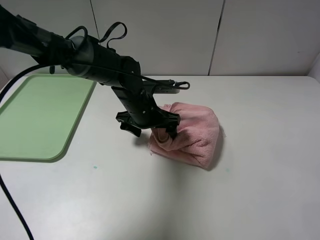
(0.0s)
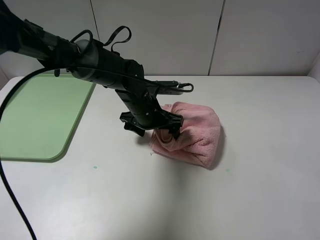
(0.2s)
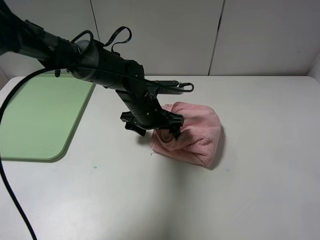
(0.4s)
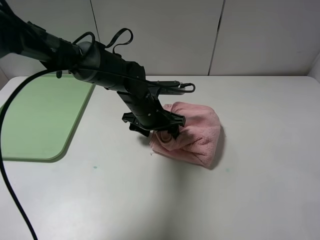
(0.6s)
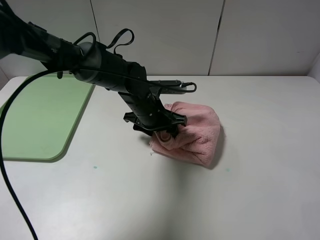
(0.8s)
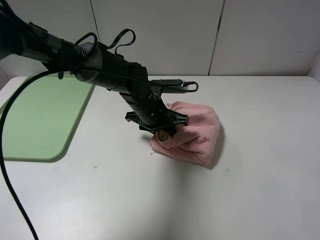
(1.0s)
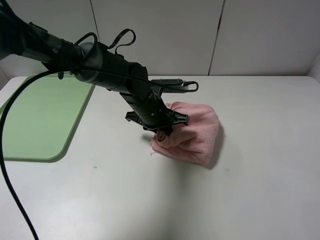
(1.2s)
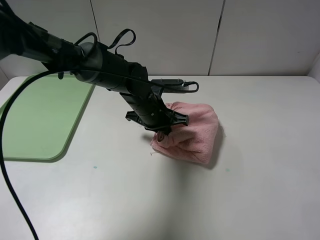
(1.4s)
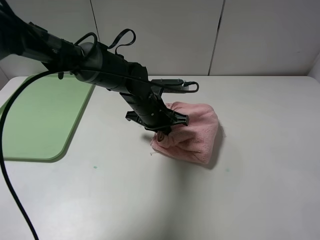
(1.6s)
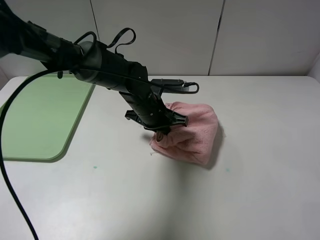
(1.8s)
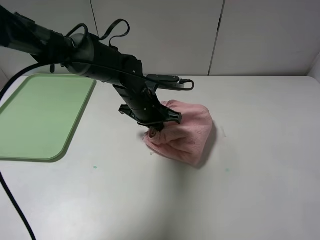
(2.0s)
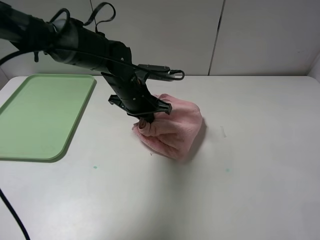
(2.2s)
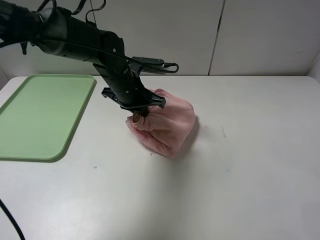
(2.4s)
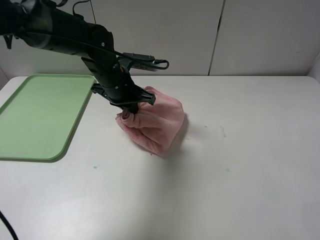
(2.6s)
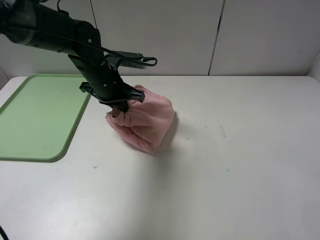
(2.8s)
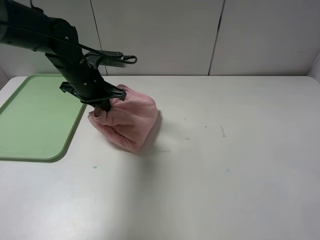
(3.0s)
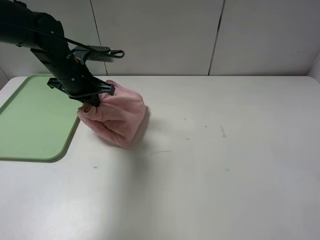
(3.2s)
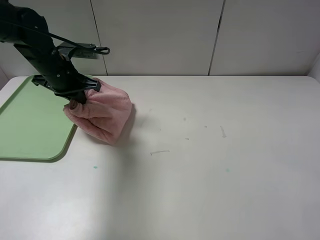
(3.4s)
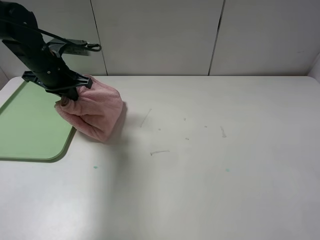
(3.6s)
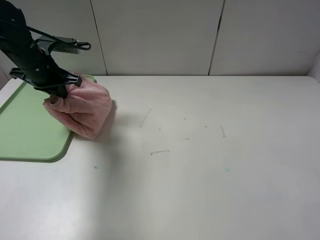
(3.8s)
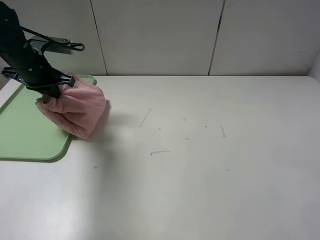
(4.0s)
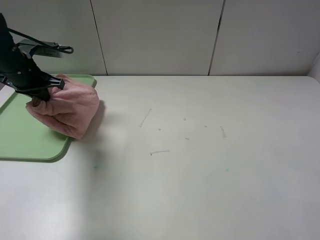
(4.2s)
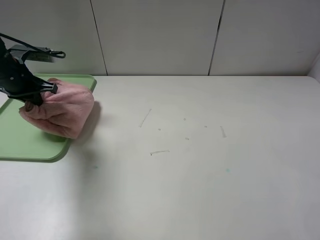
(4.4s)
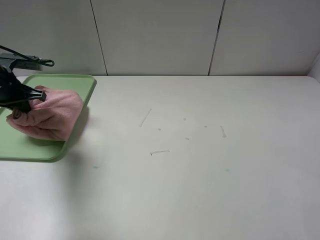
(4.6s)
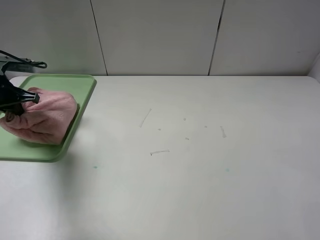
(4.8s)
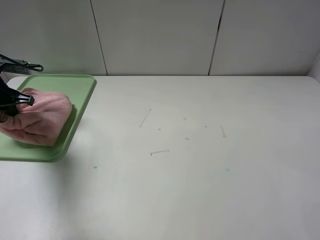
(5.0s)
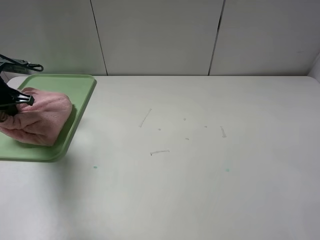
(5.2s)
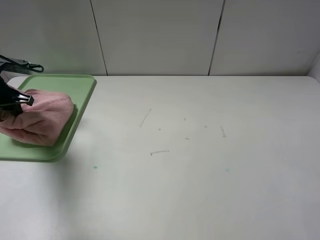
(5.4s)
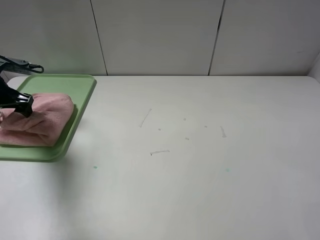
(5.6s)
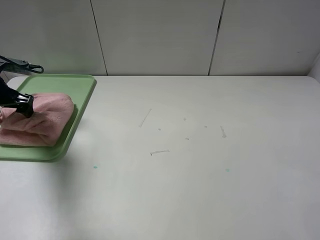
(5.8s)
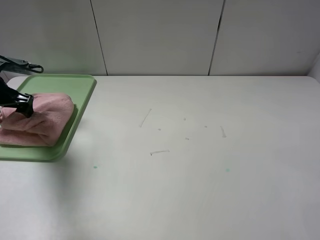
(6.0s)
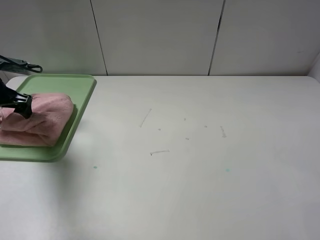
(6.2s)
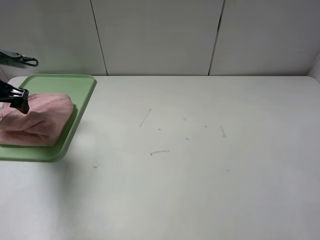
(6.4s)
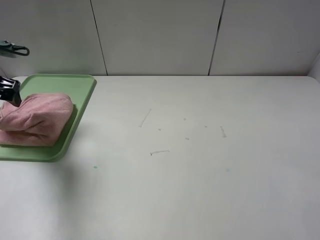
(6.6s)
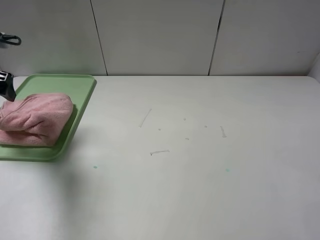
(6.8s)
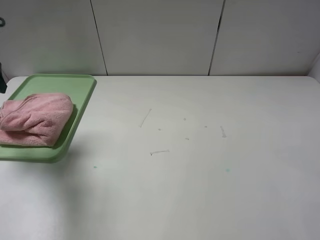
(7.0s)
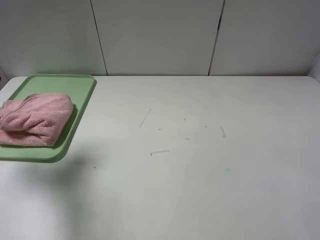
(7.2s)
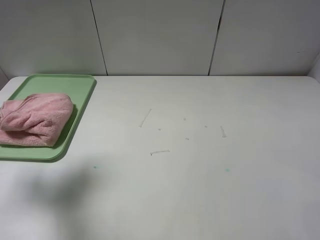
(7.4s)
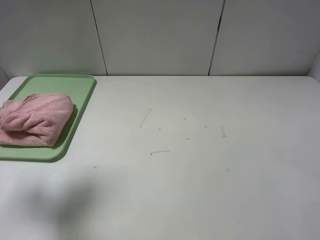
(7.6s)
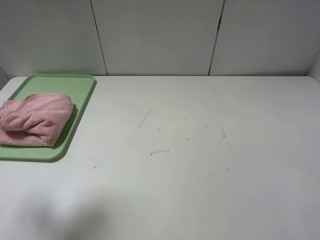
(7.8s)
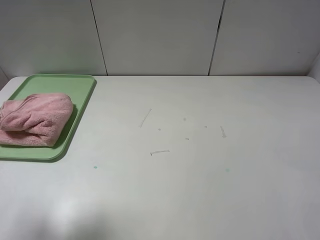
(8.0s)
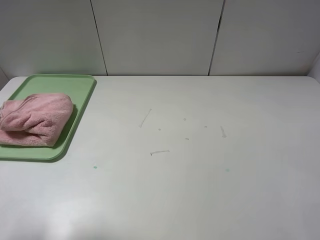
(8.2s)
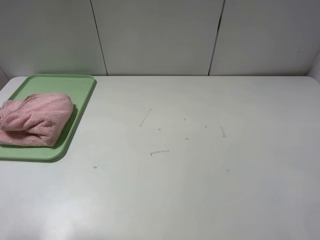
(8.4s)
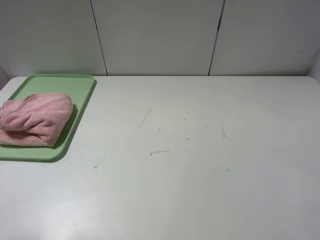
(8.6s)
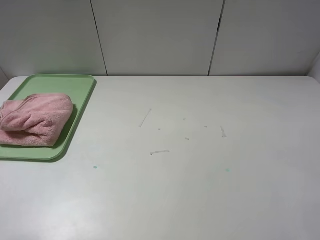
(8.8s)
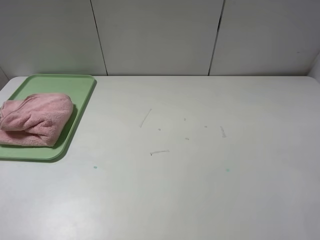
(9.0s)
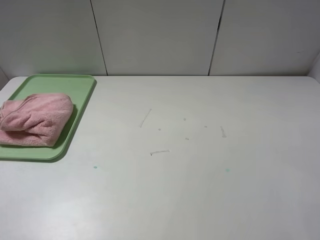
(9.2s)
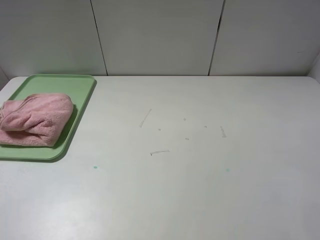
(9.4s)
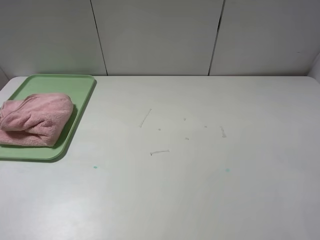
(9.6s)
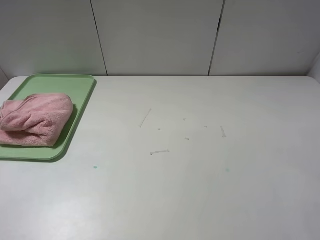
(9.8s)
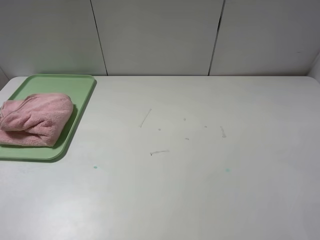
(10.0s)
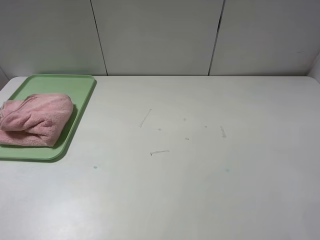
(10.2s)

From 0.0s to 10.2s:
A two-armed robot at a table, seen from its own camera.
Step, from 0.0s to 6.6s: Place the folded pink towel on the tray with the left gripper.
From 0.0s to 1.4s: The left gripper closes up.
From 1.4s to 3.0s: The left gripper heads to the left and upward, covering roughly 15 cm.
From 3.0s to 4.4s: The left gripper shifts roughly 15 cm to the left.
From 4.4s to 5.8s: The left gripper ends up some 5 cm from where it was, and opens up.
From 5.8s to 7.2s: The left gripper shifts roughly 15 cm upward and backward.
From 7.2s to 8.8s: The left gripper travels backward by about 20 cm.
